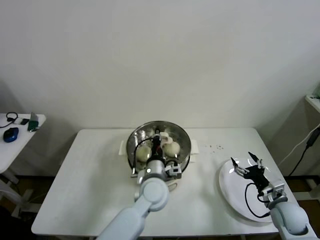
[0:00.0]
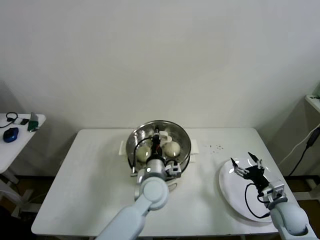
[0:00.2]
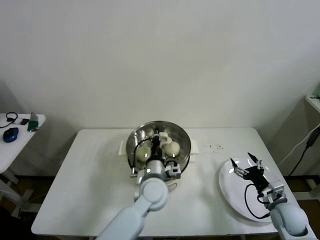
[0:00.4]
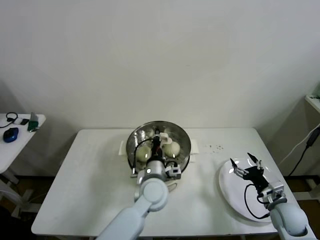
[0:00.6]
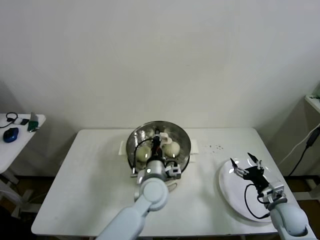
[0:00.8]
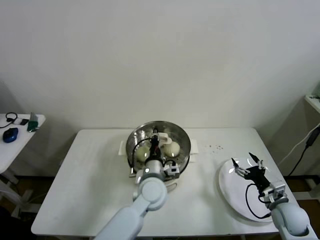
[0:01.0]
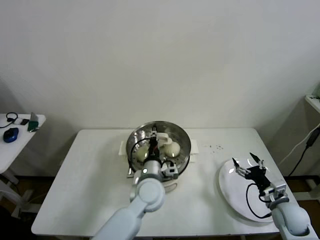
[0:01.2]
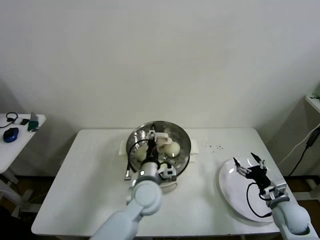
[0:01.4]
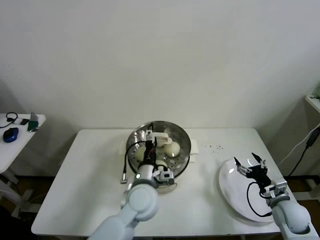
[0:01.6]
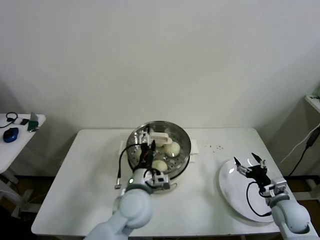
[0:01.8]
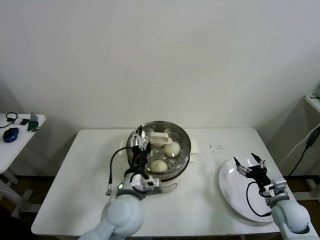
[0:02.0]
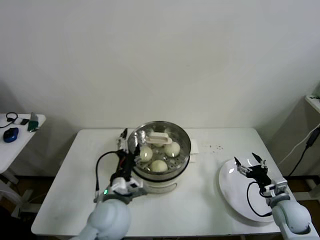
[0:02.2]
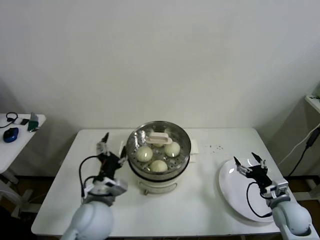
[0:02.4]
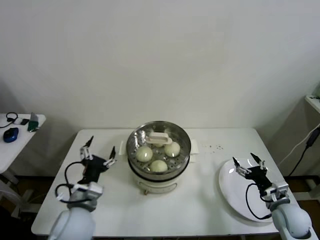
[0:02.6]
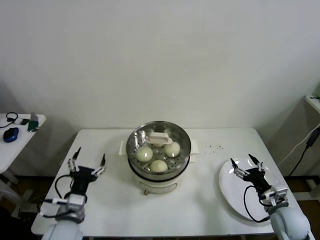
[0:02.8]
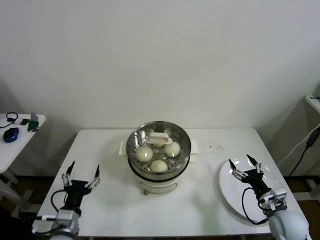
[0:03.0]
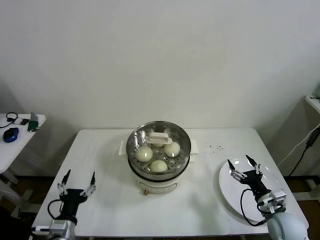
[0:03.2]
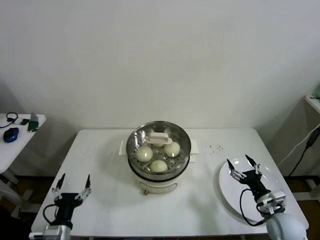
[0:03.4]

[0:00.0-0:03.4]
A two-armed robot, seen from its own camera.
0:00.0 to 0:01.6: The left gripper opens its fingers.
0:01.6 to 0:03.4: The left gripper is displaced to the left and backward by about 30 cm.

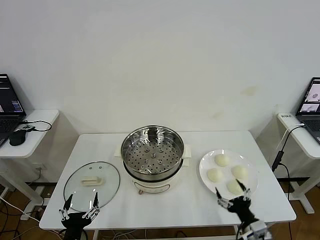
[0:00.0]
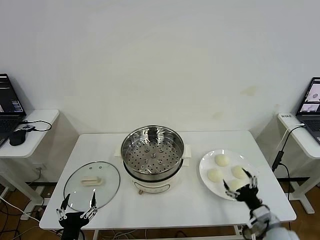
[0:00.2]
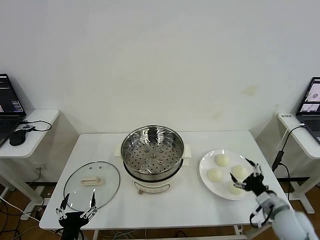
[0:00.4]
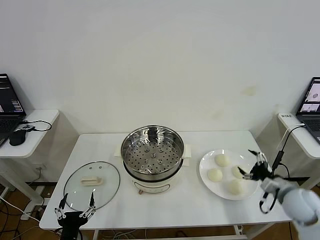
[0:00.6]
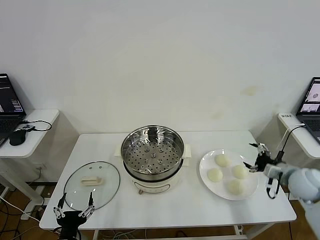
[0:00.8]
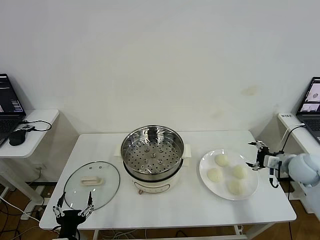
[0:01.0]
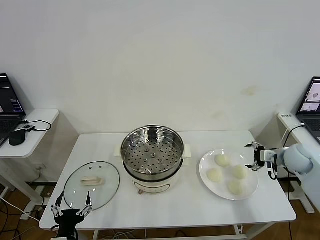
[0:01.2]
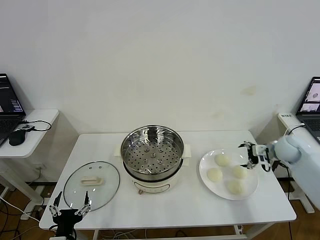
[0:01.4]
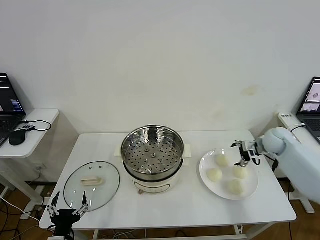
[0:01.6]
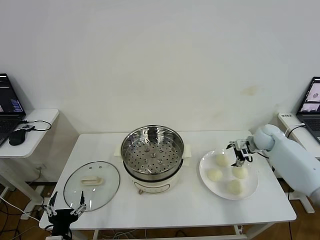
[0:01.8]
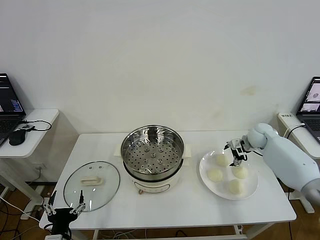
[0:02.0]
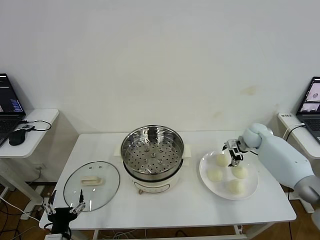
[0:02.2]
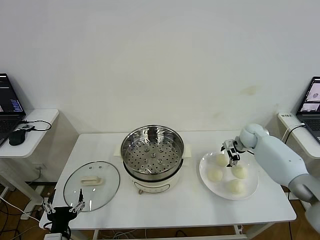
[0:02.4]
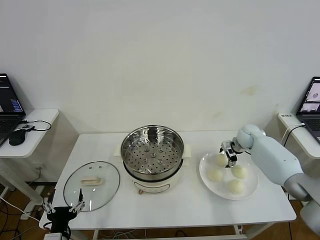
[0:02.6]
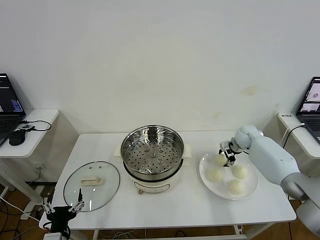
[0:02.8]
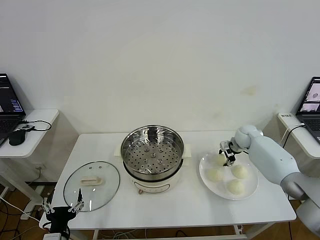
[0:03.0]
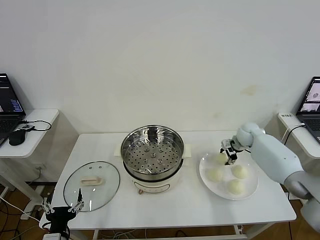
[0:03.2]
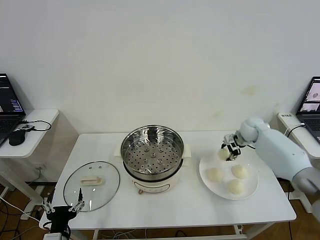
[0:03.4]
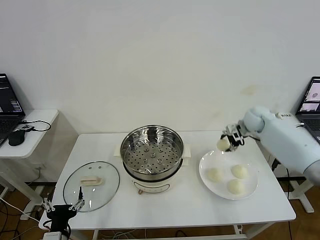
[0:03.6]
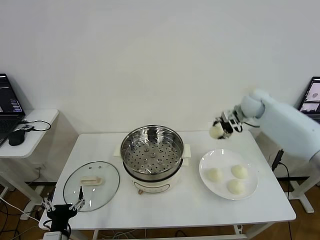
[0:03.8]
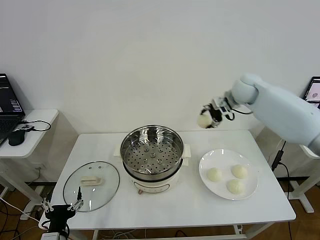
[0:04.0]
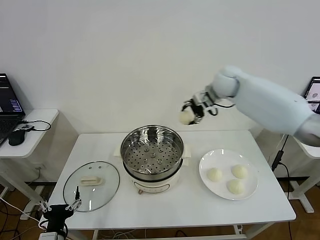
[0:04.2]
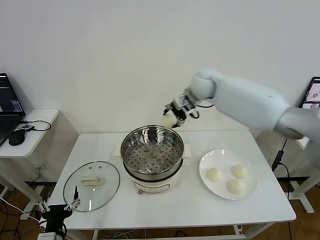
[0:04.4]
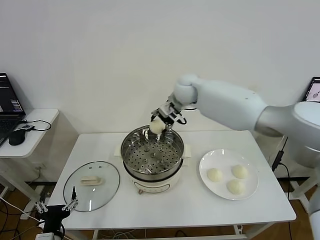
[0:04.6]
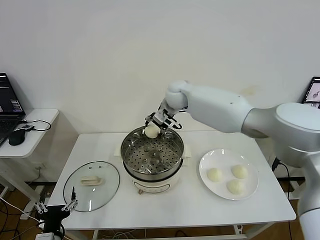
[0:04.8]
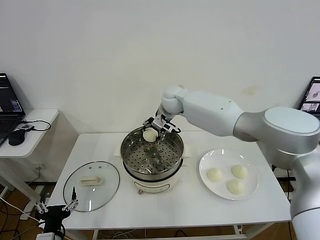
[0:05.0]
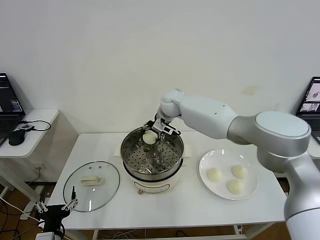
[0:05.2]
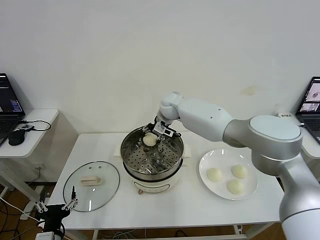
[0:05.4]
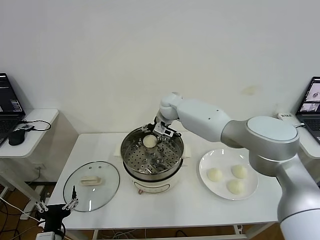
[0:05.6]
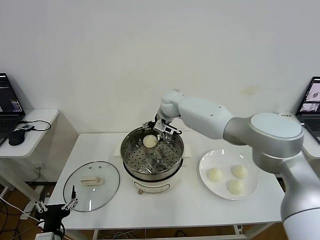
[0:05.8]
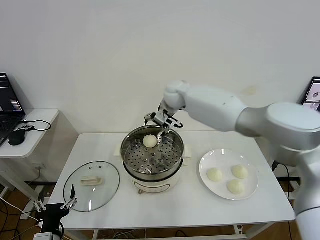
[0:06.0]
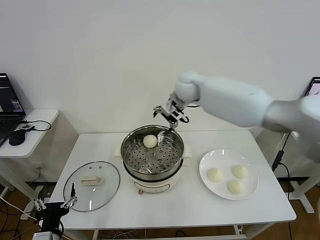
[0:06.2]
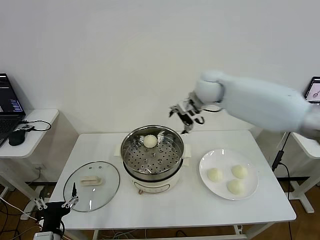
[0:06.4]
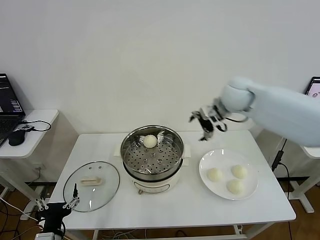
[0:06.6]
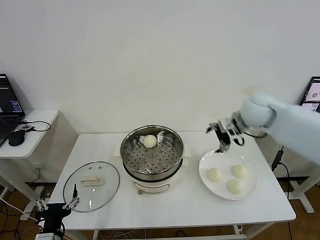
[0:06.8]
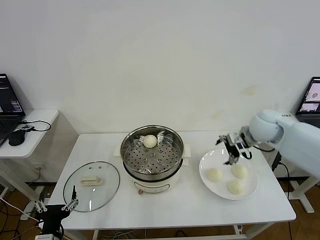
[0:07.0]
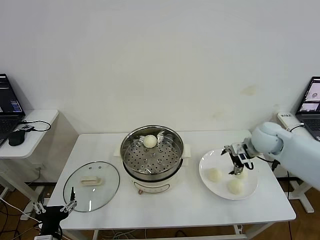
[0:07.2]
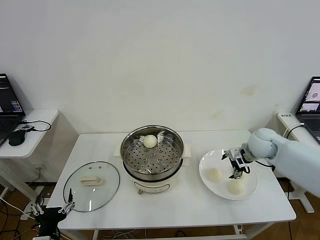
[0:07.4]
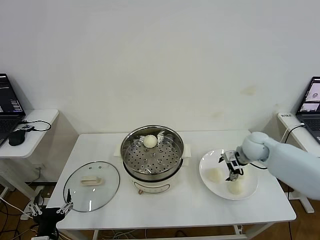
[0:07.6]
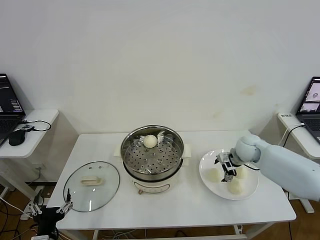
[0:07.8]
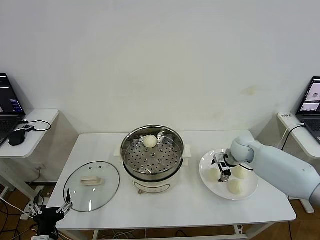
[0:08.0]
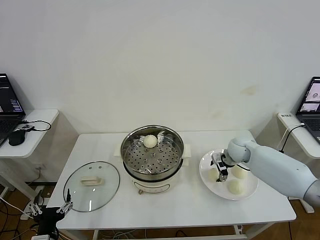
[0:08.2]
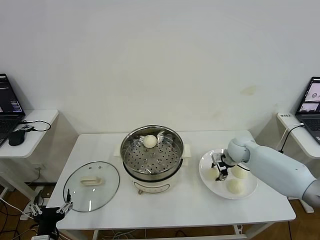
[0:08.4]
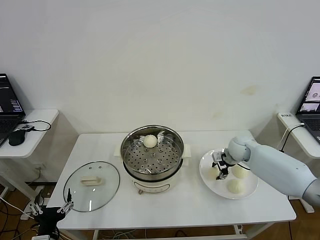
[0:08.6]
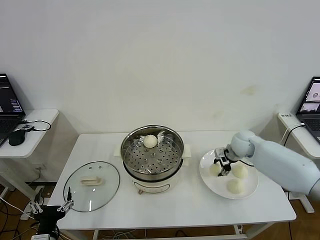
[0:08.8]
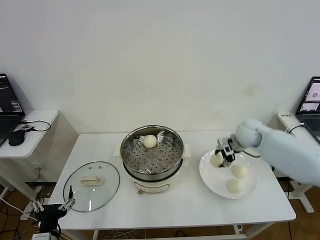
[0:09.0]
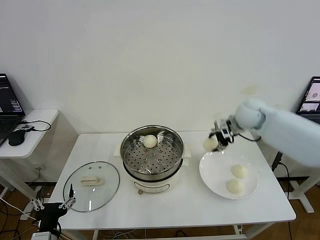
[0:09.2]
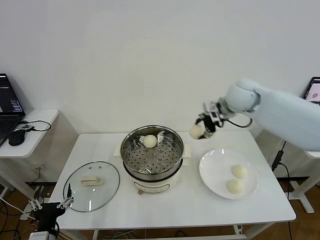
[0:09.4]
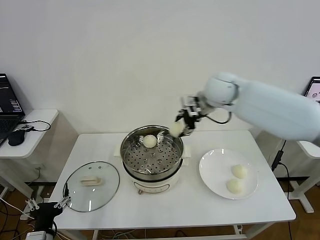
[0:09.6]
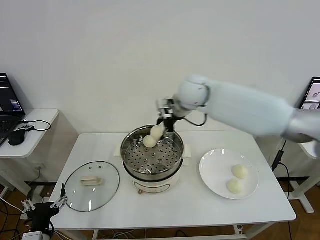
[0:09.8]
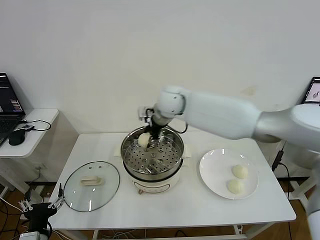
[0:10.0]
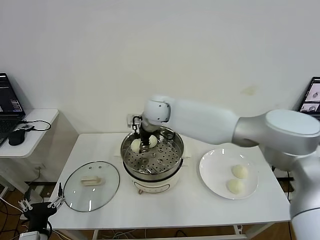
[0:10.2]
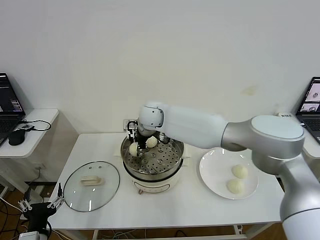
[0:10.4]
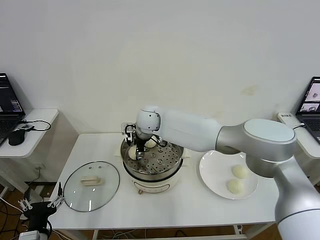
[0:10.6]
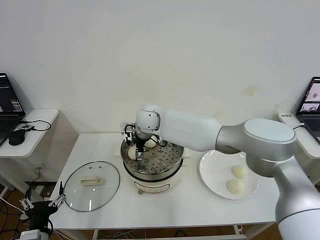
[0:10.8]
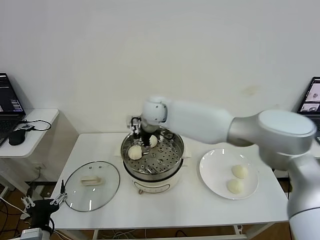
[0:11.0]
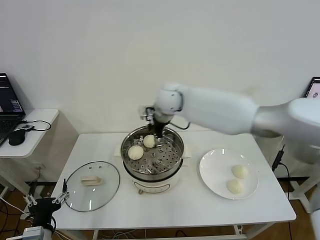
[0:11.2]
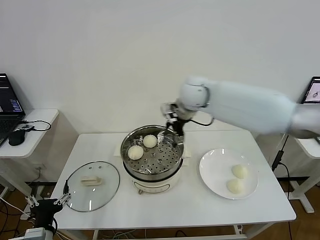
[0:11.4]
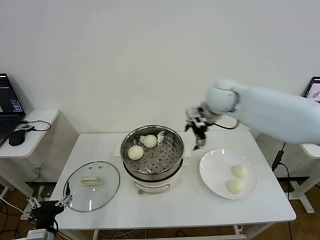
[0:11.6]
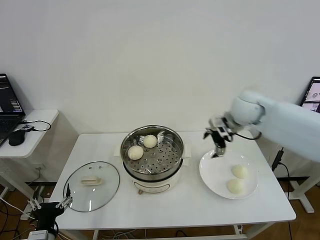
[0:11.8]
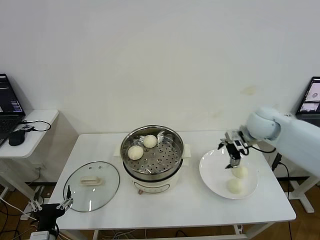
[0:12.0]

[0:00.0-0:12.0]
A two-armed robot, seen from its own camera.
Step, 0:00.0 to 0:03.0: Grasp the baozi in the plate with right gripper.
Step, 0:03.2 to 0:05.4: Place the baozi on the steamer with right gripper.
Step, 0:05.8 to 0:08.4: Grasp the baozi in the plate with right gripper.
Step, 0:08.6 to 0:10.6: Place the baozi on the steamer with right gripper.
0:01.6 to 0:03.0: The right gripper travels to the left and forward by approximately 5 cm, and closes.
0:03.0 to 0:04.4: The right gripper is displaced to the left and upward by some 35 cm.
0:04.4 to 0:06.0: The right gripper travels downward and back again, about 10 cm each way, and opens up.
0:06.0 to 0:07.6: The right gripper travels to the right, downward and backward by approximately 35 cm.
0:07.6 to 0:09.0: The right gripper goes approximately 10 cm upward, and closes.
0:09.0 to 0:10.4: The right gripper shifts approximately 35 cm to the left.
0:10.4 to 0:12.0: The right gripper shifts some 35 cm to the right, and opens its fingers.

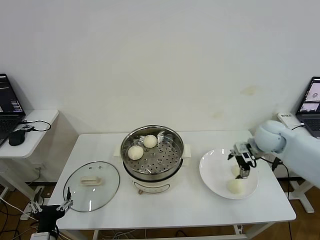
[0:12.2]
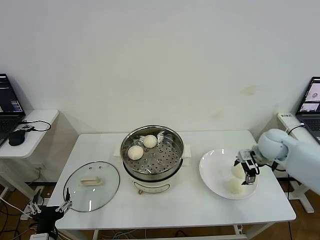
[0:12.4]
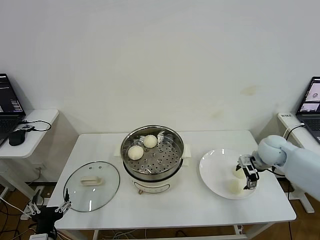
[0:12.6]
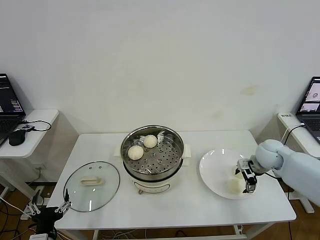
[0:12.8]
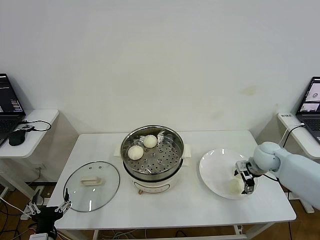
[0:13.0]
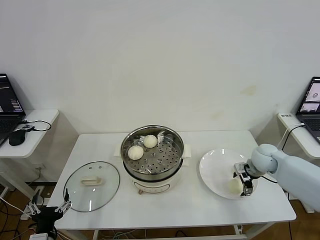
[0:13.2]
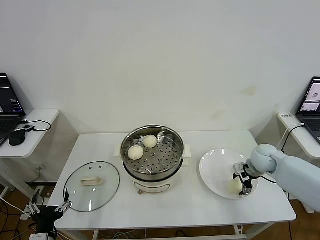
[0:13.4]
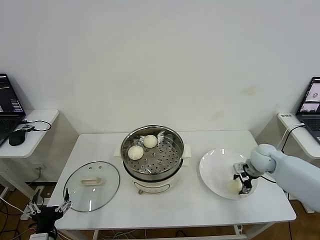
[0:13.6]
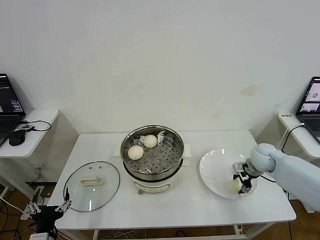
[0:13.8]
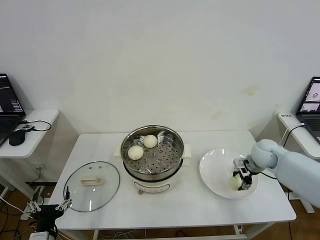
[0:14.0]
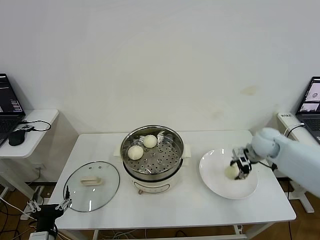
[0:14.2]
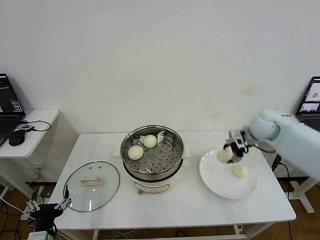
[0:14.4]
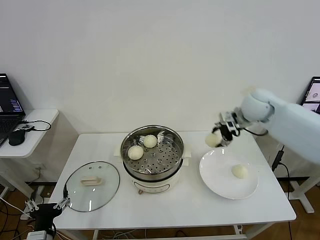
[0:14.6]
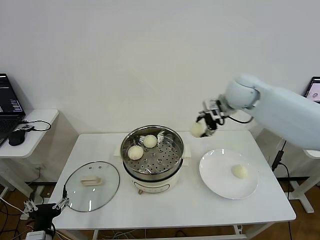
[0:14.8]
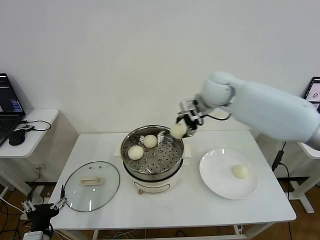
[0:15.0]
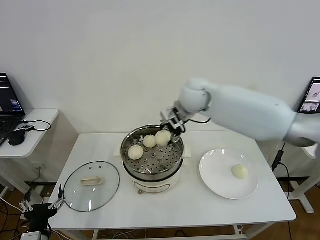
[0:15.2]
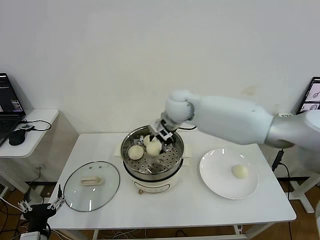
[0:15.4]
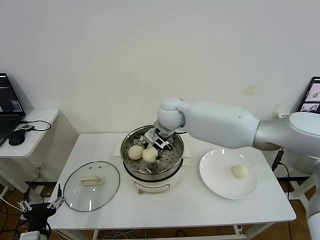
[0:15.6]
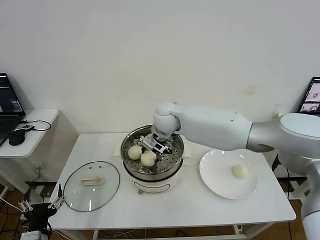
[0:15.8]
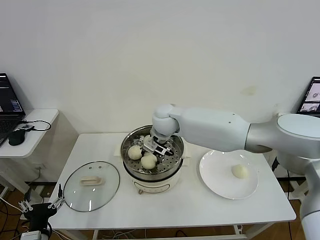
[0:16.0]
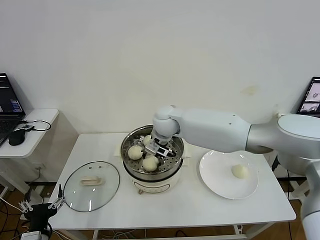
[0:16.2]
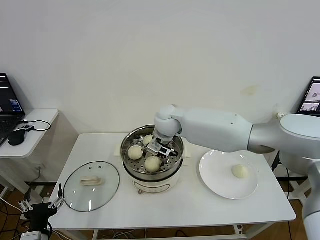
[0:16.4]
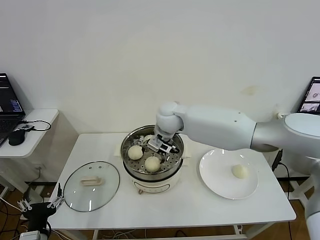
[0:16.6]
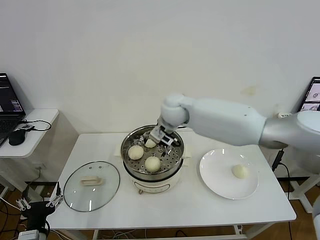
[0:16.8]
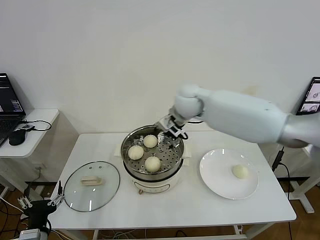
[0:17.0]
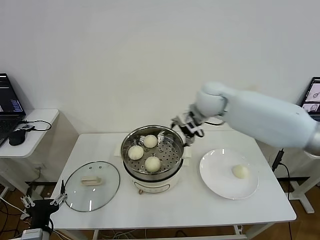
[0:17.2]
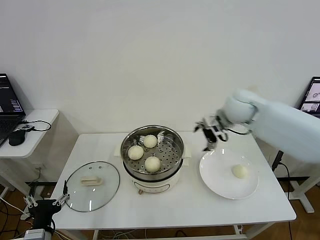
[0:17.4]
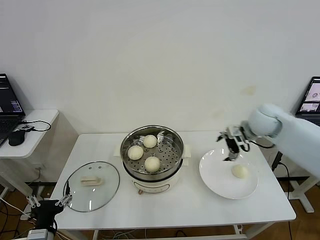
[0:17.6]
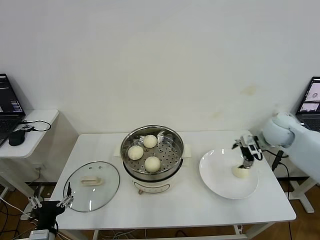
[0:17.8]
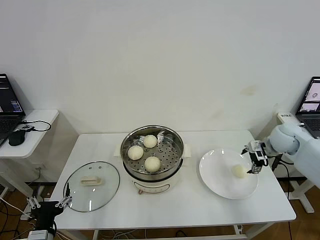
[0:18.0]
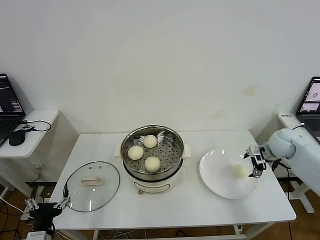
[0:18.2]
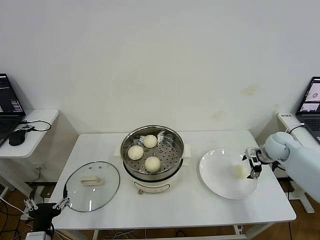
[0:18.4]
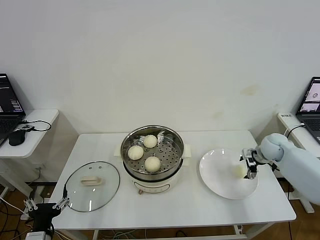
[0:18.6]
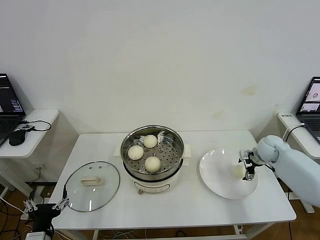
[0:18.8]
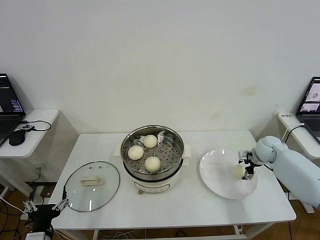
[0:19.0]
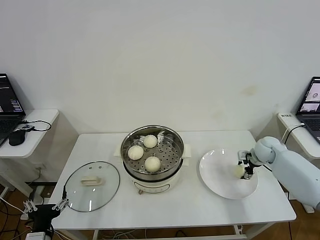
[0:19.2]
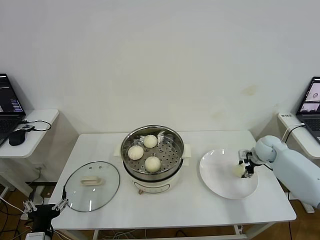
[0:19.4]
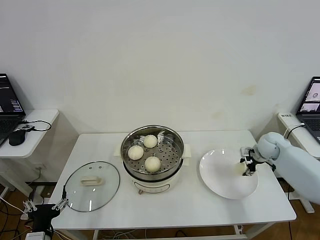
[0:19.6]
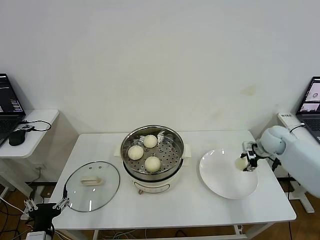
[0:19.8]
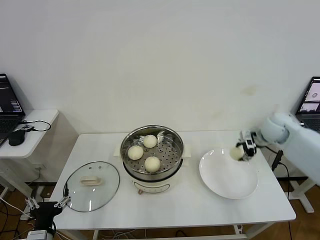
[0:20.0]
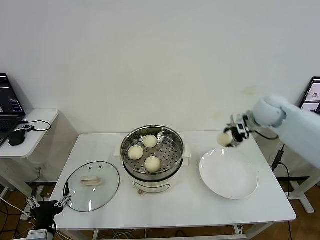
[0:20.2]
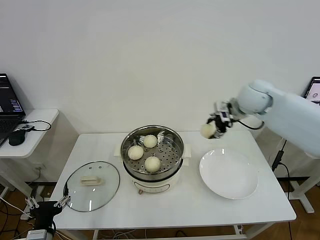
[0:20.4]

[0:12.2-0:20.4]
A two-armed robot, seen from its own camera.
Step, 0:14.0 to 0:16.4: Place the baozi on the steamer with right gripper.
Step, 0:16.6 to 0:19.2: Grasp the baozi in the plate with right gripper.
0:12.2 to 0:13.8: The right gripper heads downward, covering some 10 cm, and closes.
0:13.8 to 0:15.4: The right gripper travels to the left and upward by roughly 35 cm.
0:15.4 to 0:17.2: The right gripper is displaced to the right by some 10 cm, and opens its fingers.
0:17.2 to 0:18.8: The right gripper moves to the right and downward, some 35 cm.
0:18.8 to 0:20.4: The right gripper is displaced upward and to the left by some 25 cm, and closes its fingers.
